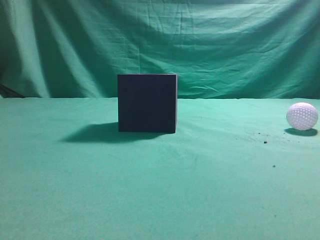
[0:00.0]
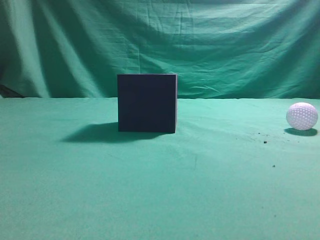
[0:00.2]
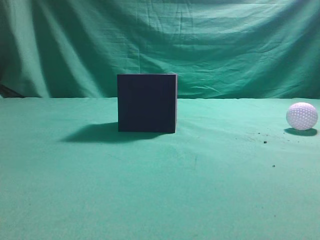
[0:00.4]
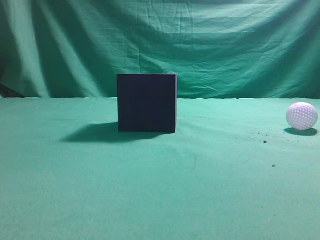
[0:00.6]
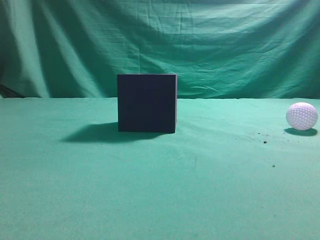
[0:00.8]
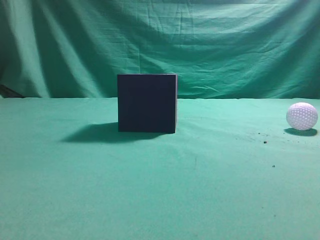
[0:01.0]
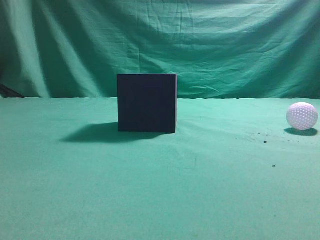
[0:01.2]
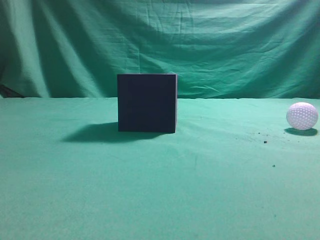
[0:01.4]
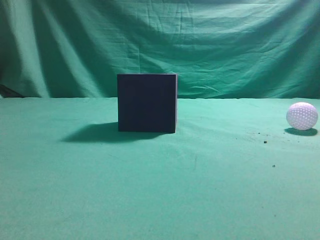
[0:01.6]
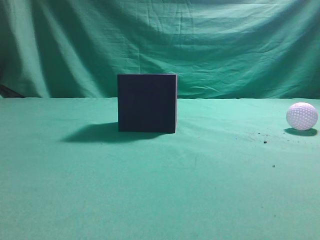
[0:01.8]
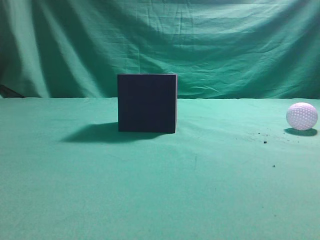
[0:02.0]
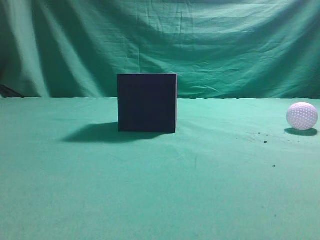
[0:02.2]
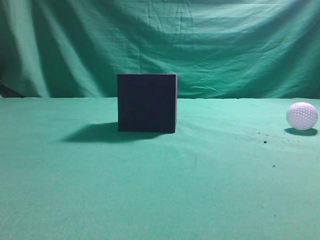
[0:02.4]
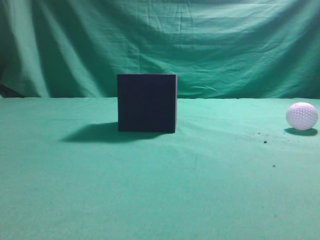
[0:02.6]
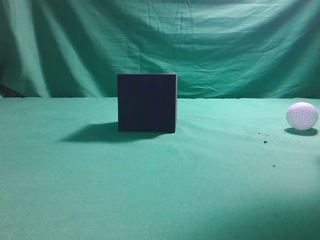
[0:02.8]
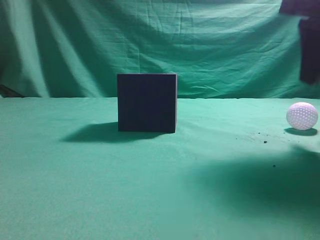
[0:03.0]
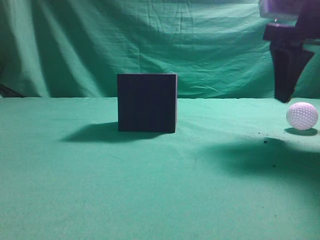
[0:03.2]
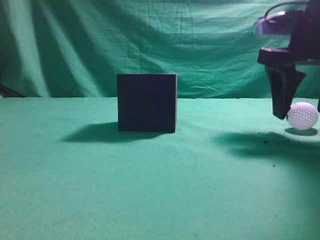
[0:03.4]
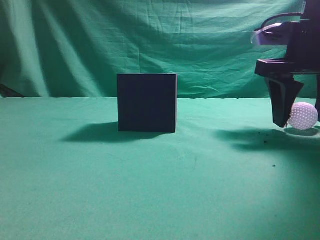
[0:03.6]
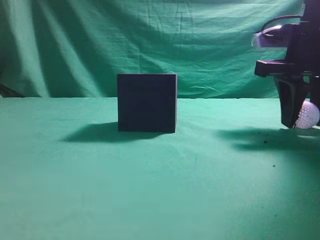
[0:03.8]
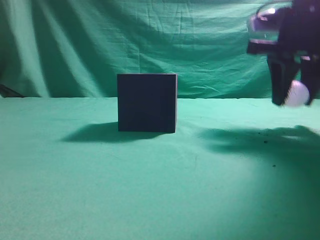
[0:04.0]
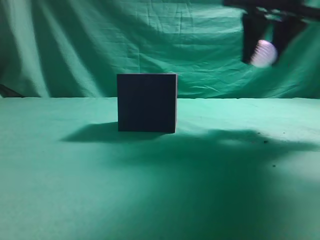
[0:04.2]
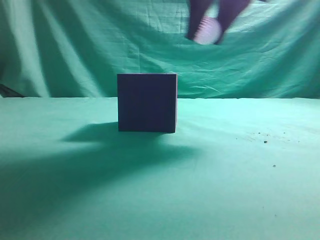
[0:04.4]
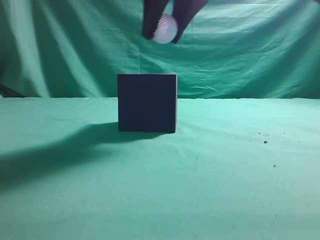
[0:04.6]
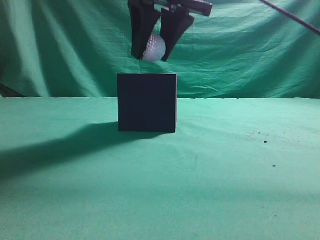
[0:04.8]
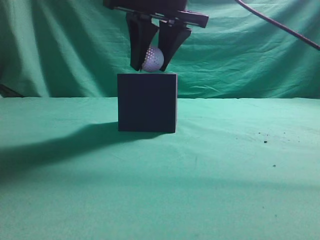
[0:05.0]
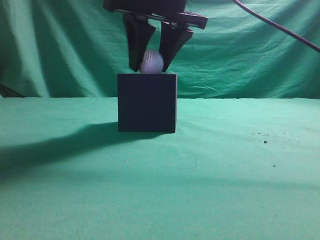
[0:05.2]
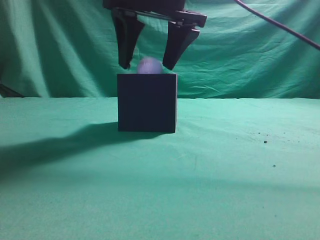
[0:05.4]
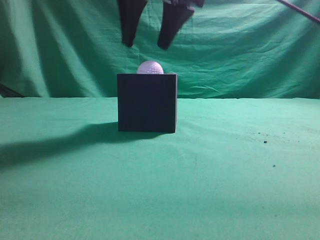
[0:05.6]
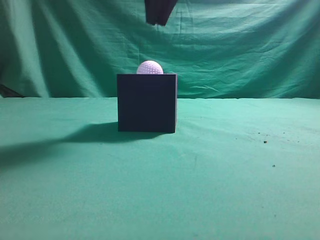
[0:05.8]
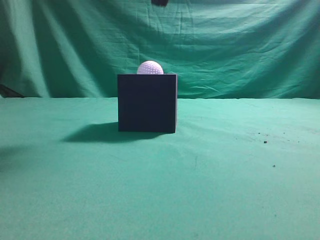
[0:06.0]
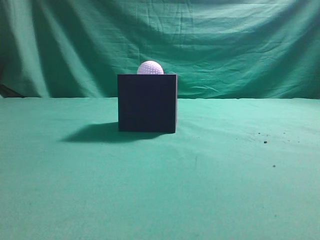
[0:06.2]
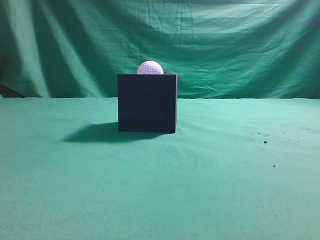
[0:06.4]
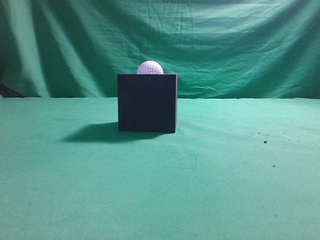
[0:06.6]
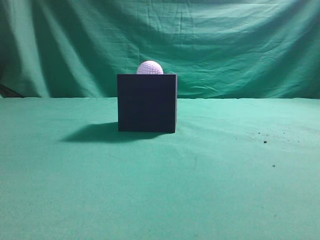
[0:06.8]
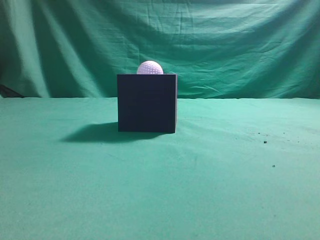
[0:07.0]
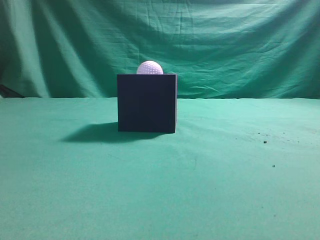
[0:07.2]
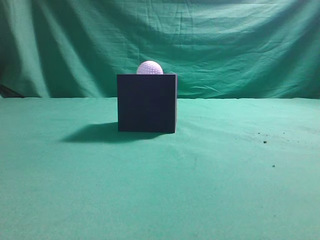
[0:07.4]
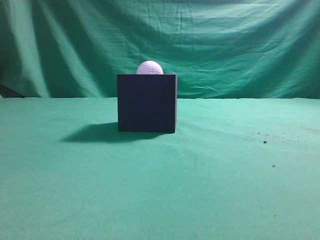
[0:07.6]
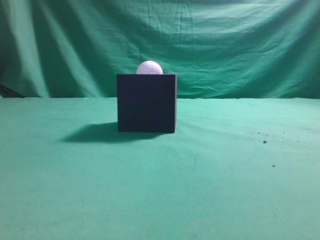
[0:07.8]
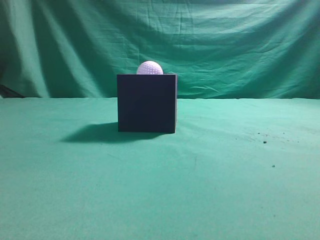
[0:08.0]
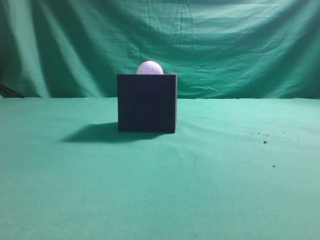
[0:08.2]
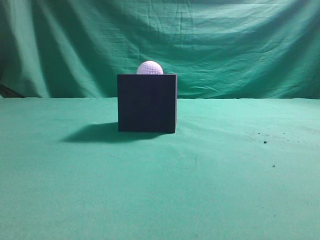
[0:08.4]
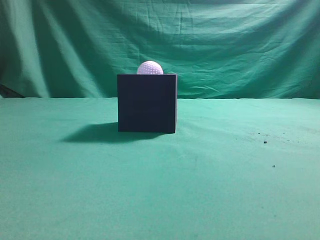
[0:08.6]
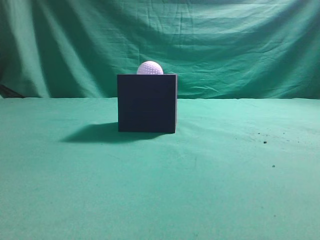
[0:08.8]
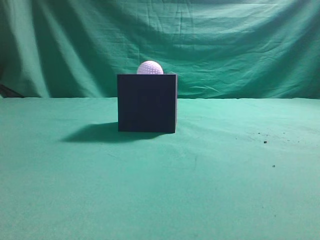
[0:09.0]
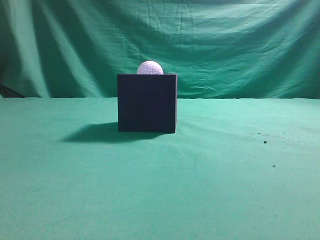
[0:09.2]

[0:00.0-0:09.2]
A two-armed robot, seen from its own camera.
Task of the whole recording: Pick up the ball and place it in the circular groove above the cube.
Step, 0:00.0 to 0:03.2: Grasp the sphere on the table.
Step, 0:03.4 to 0:04.6: Place the sphere into the sphere-shaped recess.
0:01.6 to 0:03.0: The right gripper heads forward, covering roughly 25 cm, and opens.
0:03.0 to 0:04.6: The right gripper moves to the left, roughly 15 cm, and opens, then closes once more.
0:04.6 to 0:06.2: The right gripper shifts about 10 cm upward, and closes its fingers.
